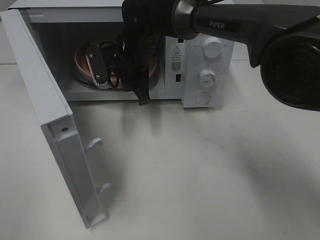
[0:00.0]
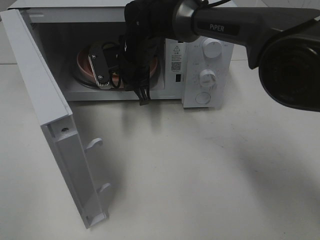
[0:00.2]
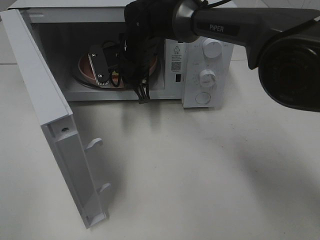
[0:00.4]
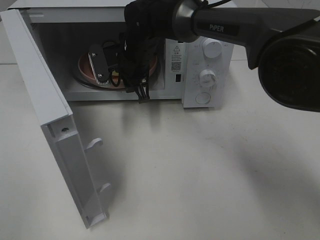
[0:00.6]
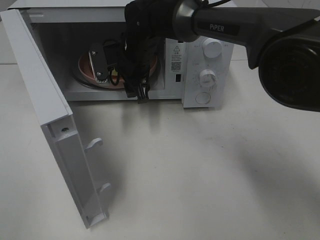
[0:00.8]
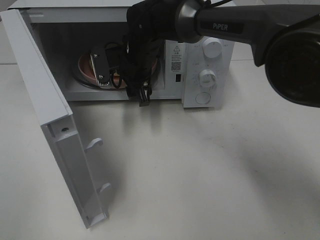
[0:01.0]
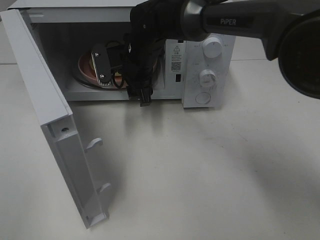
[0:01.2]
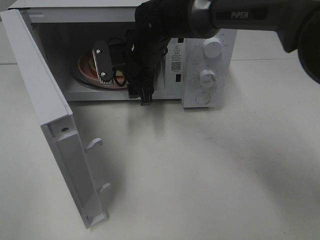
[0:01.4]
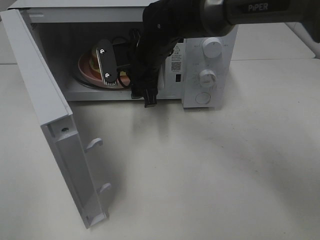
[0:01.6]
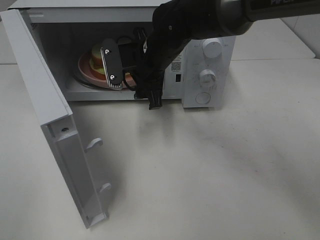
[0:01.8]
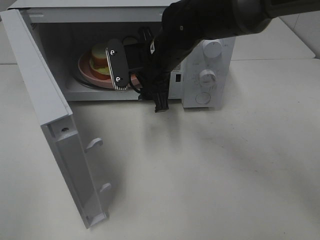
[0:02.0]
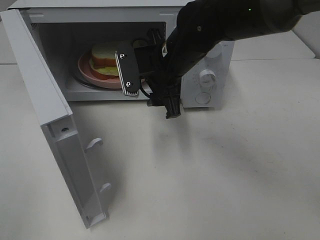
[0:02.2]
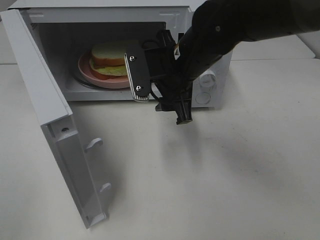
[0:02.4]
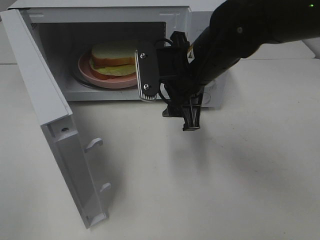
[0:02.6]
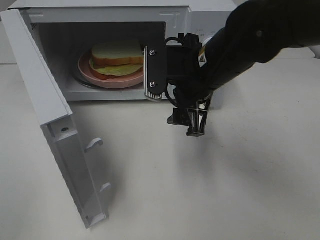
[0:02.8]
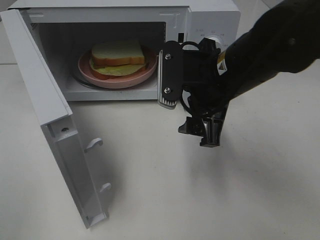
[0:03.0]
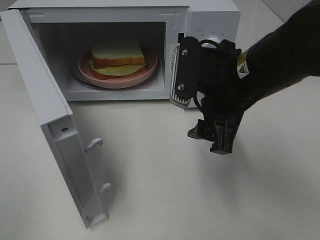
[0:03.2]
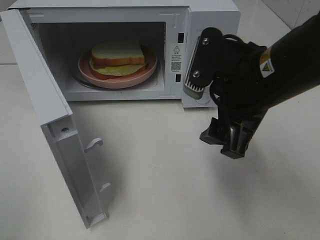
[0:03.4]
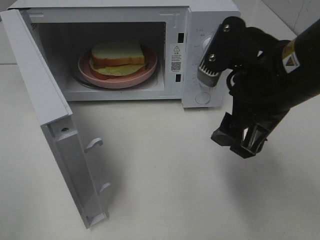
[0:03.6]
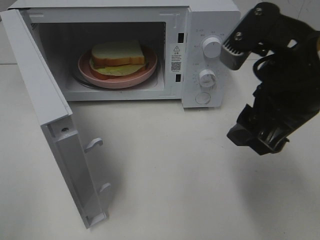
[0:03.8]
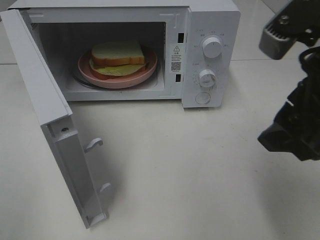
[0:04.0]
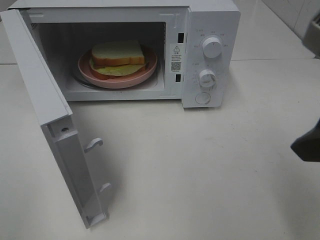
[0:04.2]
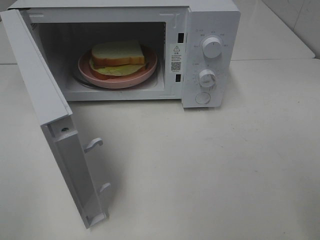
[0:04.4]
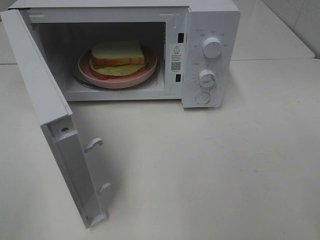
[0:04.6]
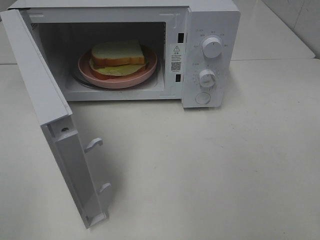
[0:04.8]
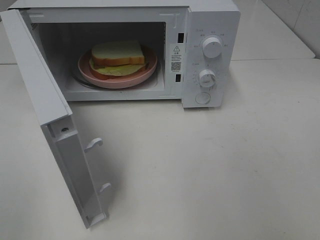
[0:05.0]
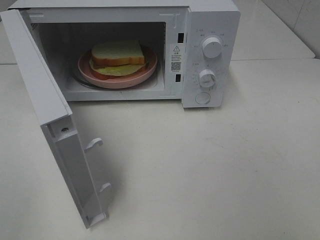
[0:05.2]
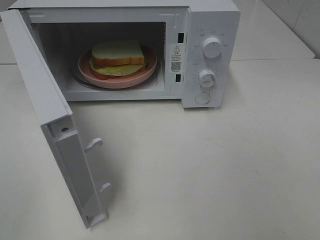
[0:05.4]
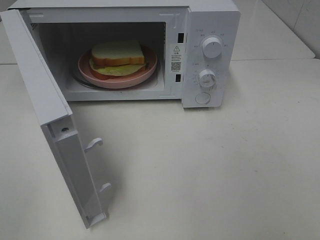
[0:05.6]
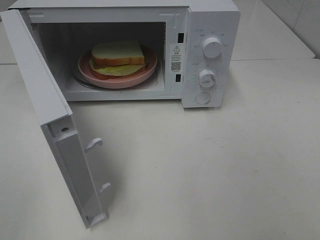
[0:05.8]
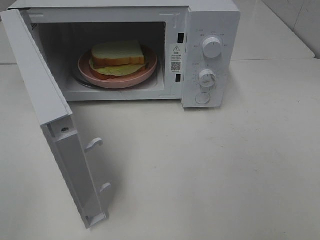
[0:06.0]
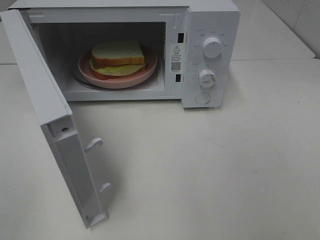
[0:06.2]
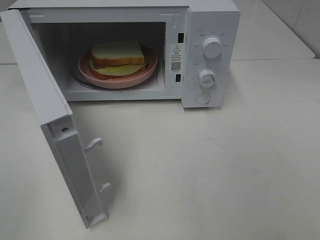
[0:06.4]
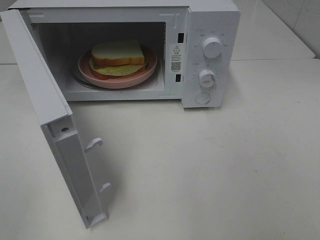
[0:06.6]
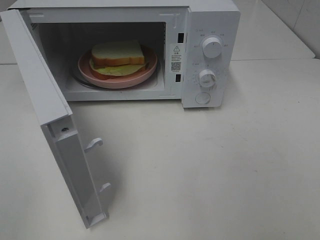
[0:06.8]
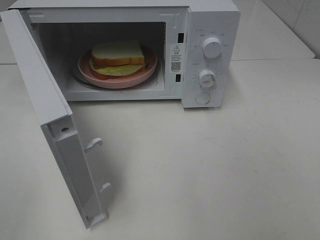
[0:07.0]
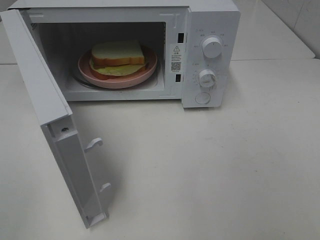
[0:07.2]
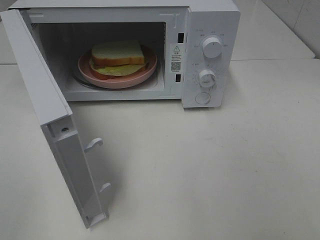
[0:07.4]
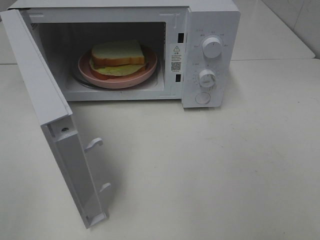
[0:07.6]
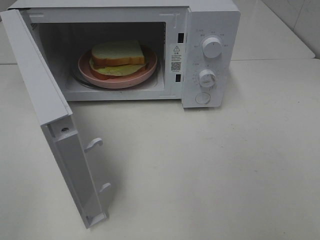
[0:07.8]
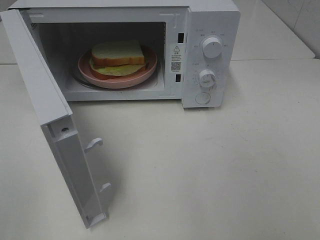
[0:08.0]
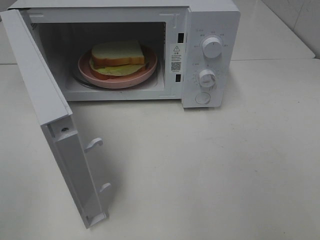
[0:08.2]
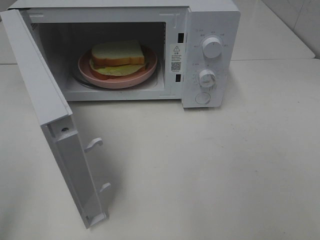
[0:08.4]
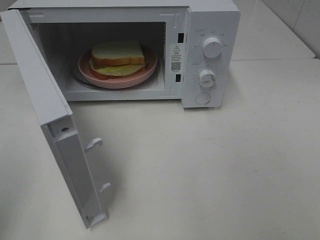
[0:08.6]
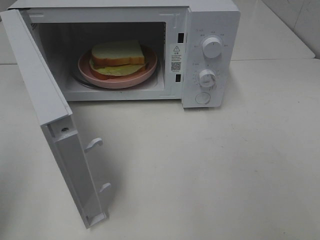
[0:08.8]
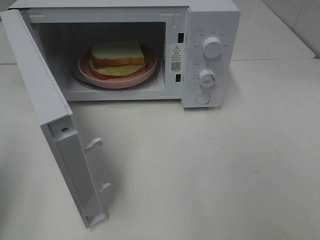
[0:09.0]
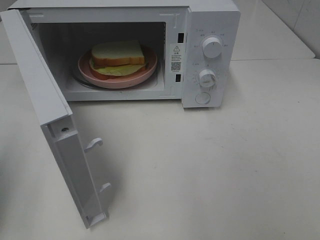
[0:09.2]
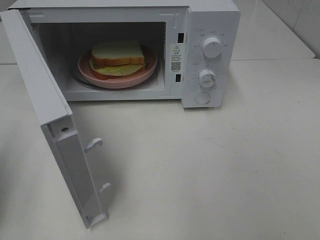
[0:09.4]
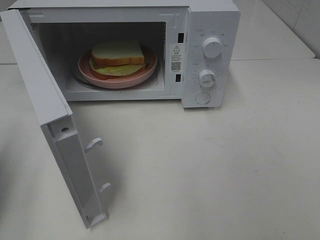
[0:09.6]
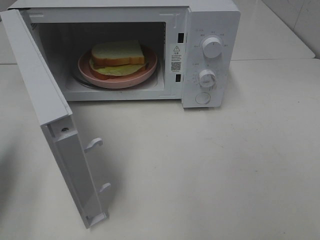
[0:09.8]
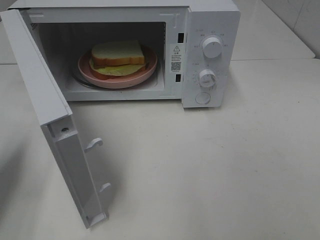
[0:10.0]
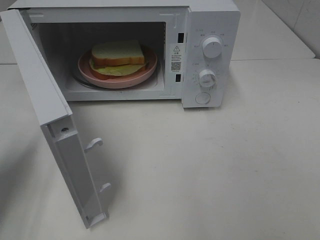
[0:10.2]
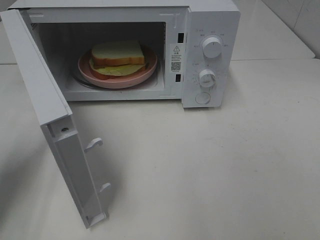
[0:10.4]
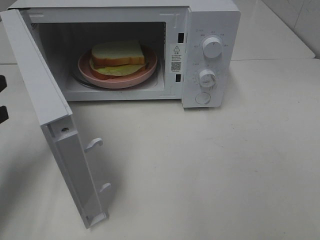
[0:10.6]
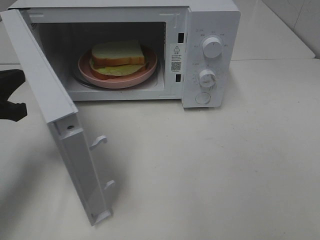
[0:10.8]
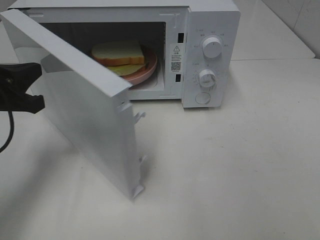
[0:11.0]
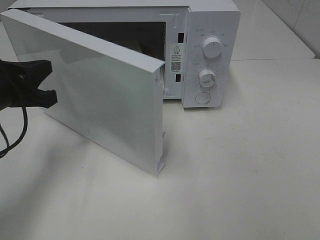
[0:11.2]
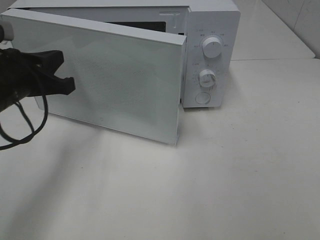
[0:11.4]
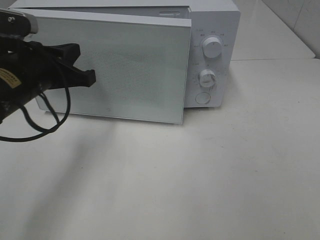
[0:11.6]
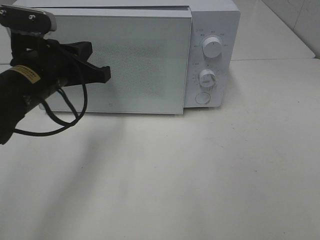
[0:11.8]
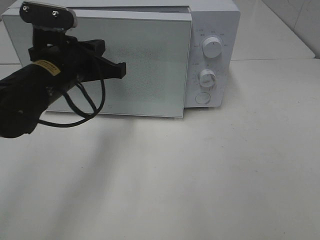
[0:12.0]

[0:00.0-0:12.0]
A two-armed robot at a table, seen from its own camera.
Task of the whole recording: Heat Sandwich.
0:00.0 to 0:01.6: The right gripper opens its fingers.
0:01.6 to 0:03.0: The right gripper goes some 15 cm backward and to the right.
0:03.0 to 0:04.4: The right gripper shifts some 25 cm backward, to the right and upward.
0:06.0 to 0:07.6: Neither gripper changes place.
0:07.6 to 0:09.0: The left gripper shifts approximately 10 cm forward, and closes.
0:09.0 to 0:10.4: The left gripper is displaced forward and downward by some 15 cm.
0:10.4 to 0:12.0: The left gripper moves to the right and forward, about 20 cm.

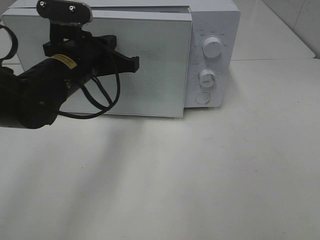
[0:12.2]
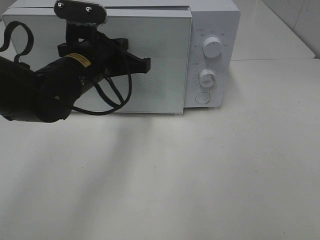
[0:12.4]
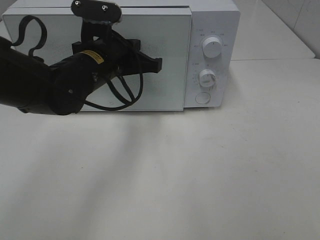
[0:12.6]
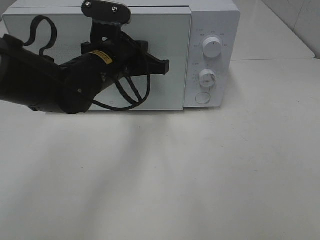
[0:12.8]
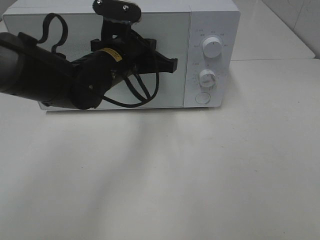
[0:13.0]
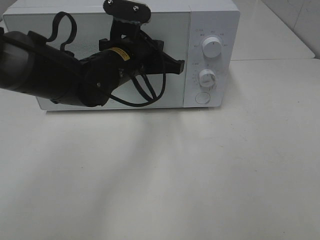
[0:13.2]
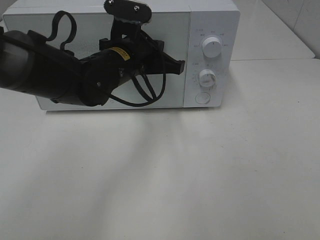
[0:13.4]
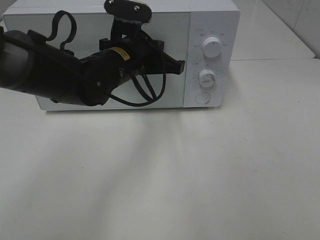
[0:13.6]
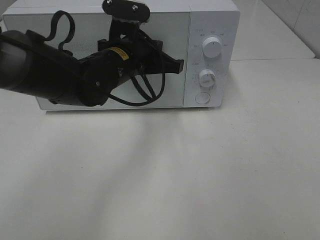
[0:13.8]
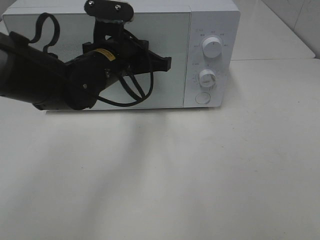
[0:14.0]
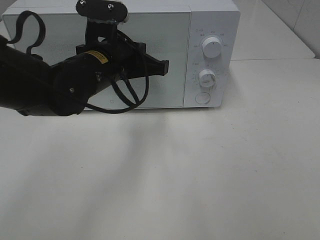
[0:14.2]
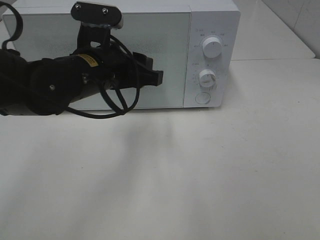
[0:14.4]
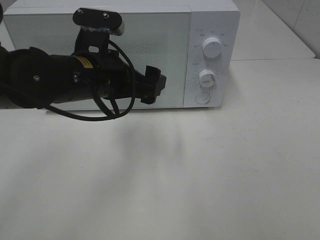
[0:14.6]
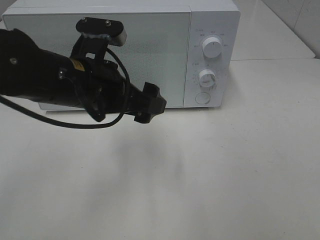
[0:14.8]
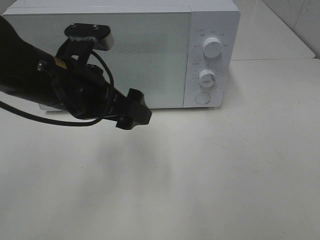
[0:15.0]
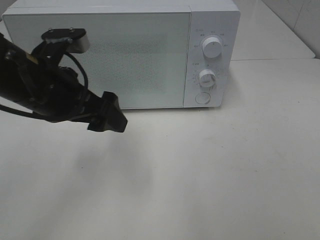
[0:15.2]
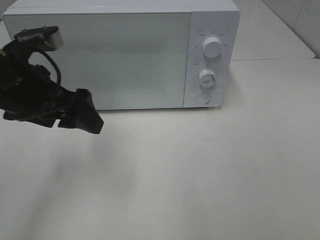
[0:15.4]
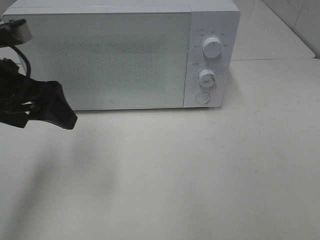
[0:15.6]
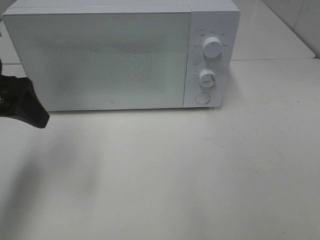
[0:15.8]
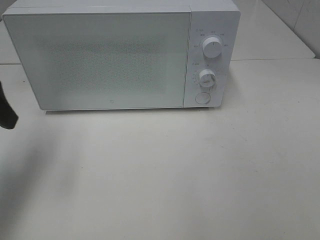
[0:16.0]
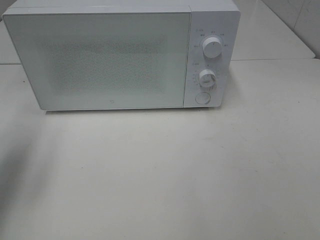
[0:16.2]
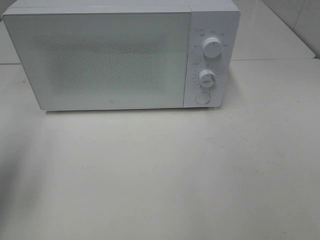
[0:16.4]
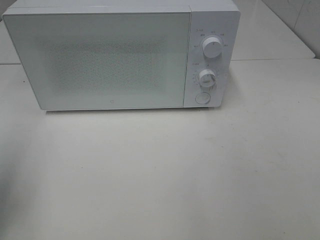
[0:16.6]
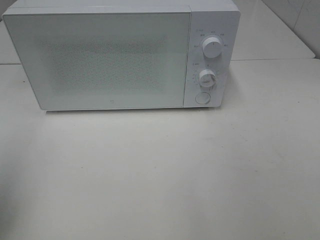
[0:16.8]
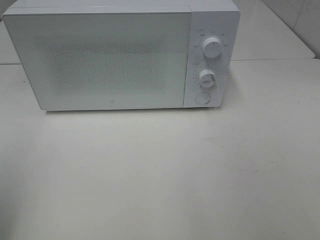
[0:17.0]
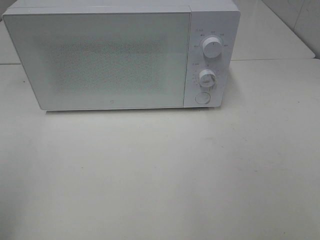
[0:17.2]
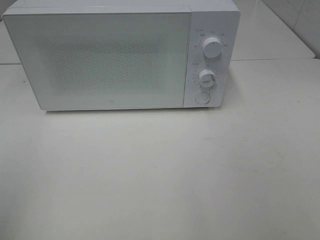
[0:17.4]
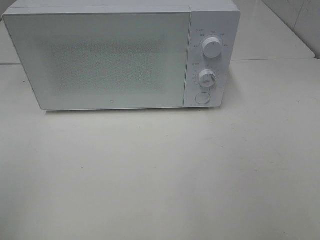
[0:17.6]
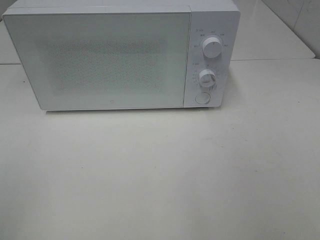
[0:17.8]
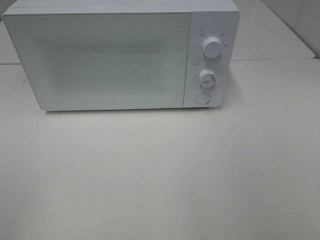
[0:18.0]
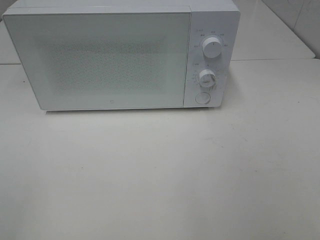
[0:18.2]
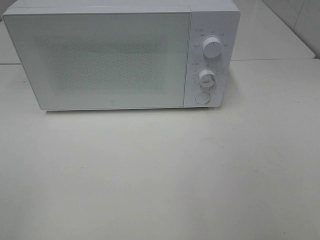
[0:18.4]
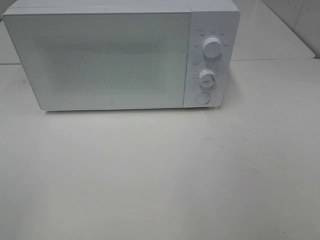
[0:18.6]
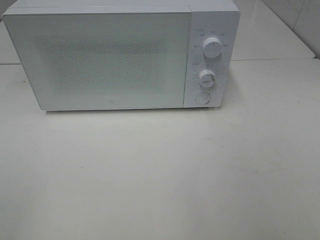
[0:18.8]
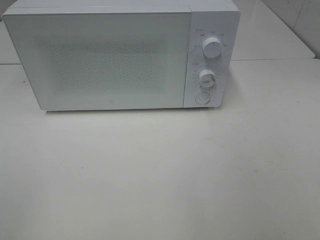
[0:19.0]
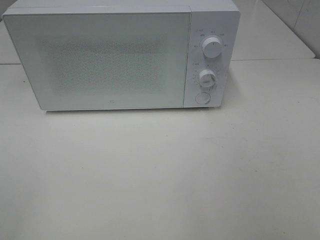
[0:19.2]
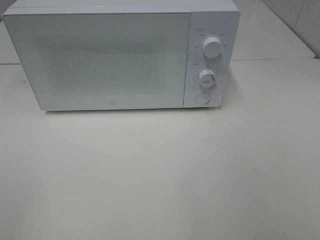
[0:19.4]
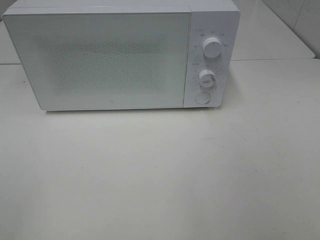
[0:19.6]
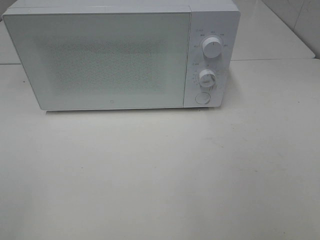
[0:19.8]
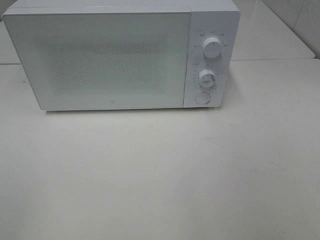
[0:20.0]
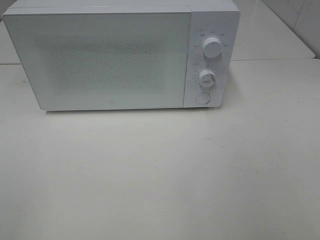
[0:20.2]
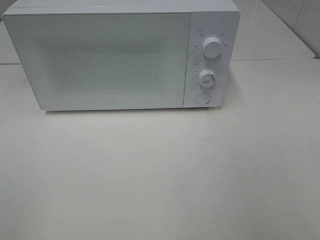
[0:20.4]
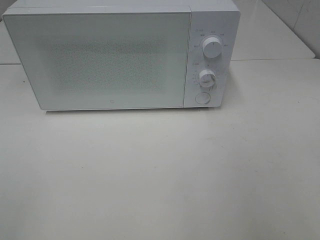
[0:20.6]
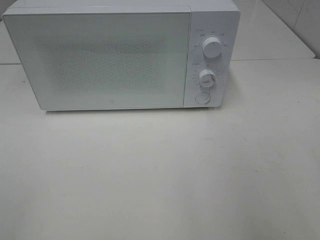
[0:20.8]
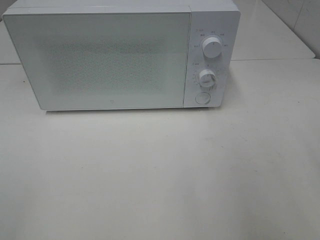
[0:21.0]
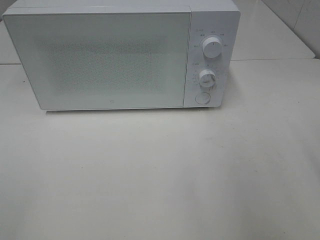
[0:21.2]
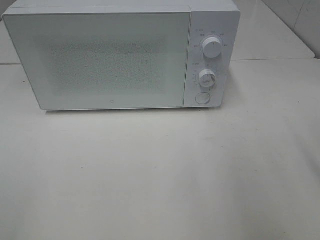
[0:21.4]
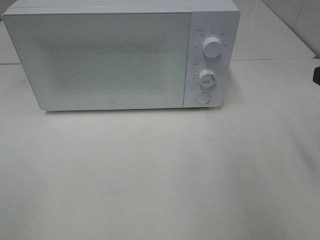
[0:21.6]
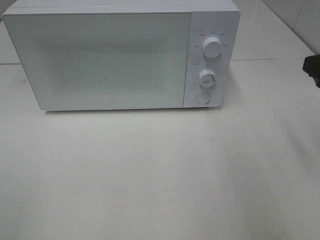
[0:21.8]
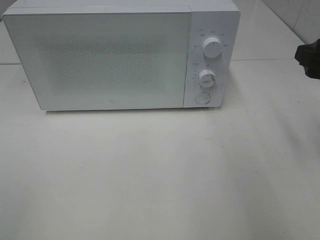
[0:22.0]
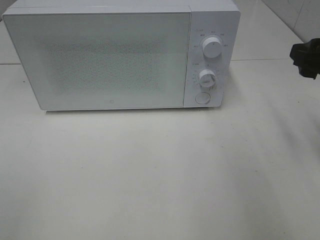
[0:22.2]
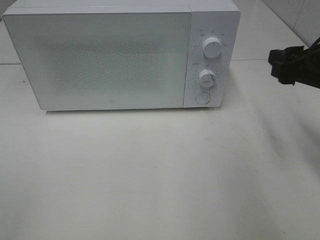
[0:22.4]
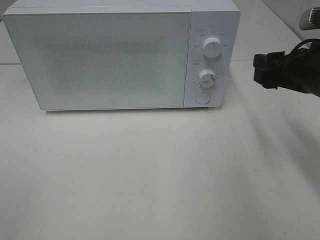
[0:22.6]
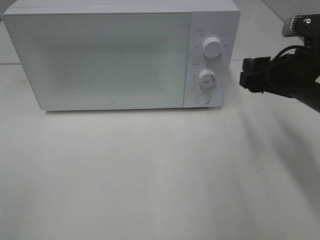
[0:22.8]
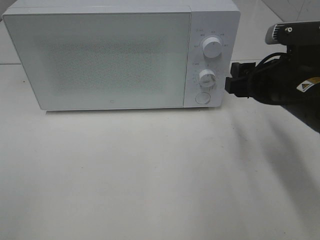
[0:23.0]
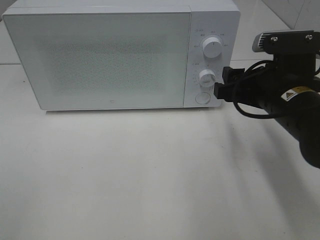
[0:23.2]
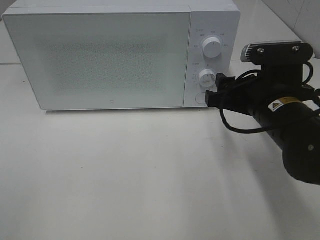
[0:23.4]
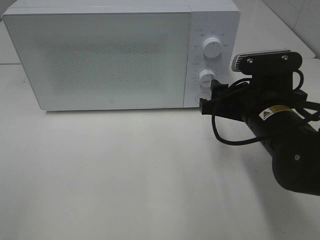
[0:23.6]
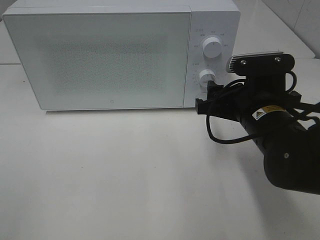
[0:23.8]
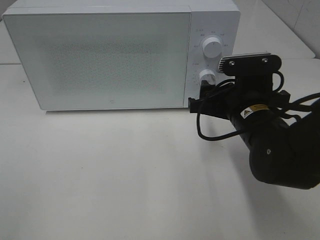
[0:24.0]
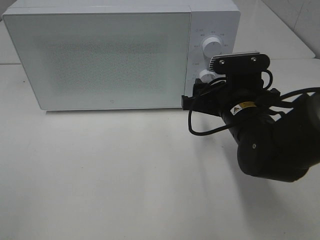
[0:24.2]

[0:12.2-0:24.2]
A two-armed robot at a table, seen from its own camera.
Task of the whole recording: Heat Sandwich.
Step, 0:12.2 to 0:14.6: Left hand: close the microwave door.
0:12.2 to 0:13.8: The left gripper goes about 5 cm to the right.
0:13.8 to 0:15.2: The left gripper is displaced to the left and backward by approximately 15 cm, and opens up.
0:15.2 to 0:16.6: The left gripper moves to the left and backward, roughly 20 cm.
0:16.6 to 0:18.2: The left gripper heads backward, covering some 15 cm.
0:18.2 to 0:19.8: The two grippers keep their place.
0:21.2 to 0:22.6: The right gripper heads forward, downward and to the left, covering approximately 15 cm.
0:22.6 to 0:24.2: The right gripper shifts some 15 cm to the left and downward.
